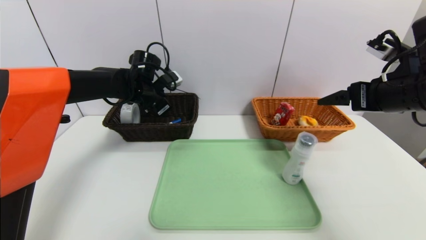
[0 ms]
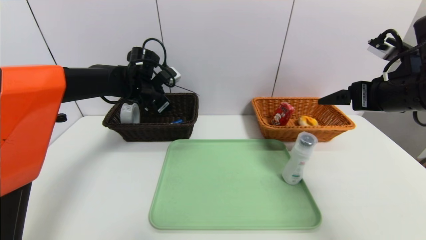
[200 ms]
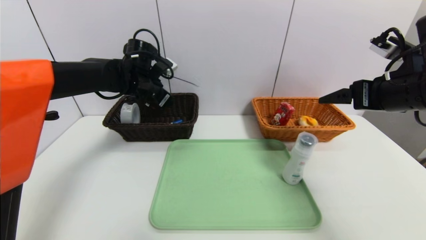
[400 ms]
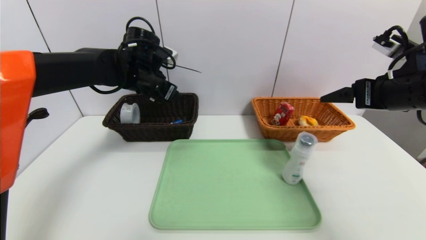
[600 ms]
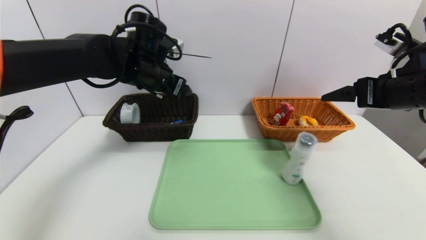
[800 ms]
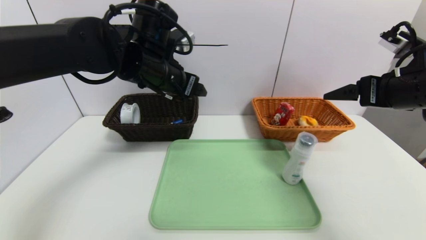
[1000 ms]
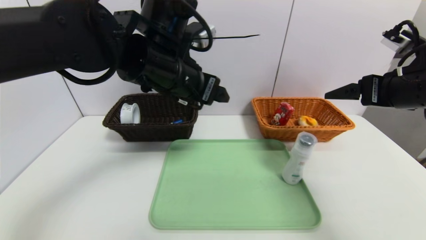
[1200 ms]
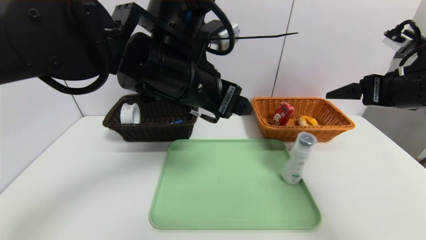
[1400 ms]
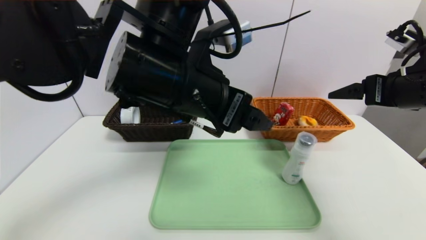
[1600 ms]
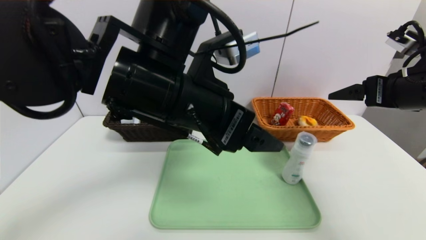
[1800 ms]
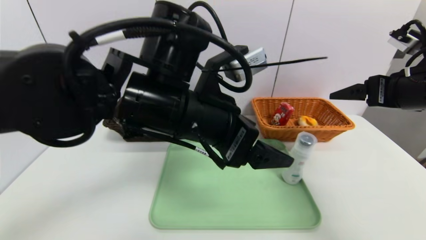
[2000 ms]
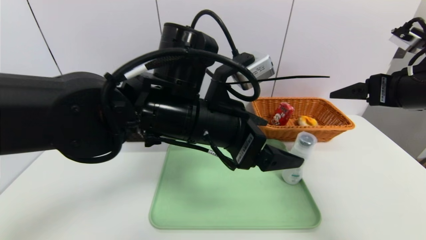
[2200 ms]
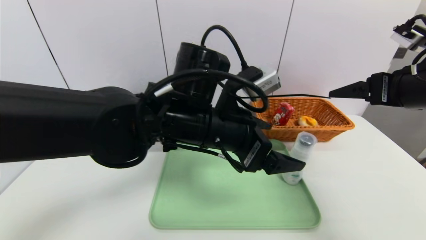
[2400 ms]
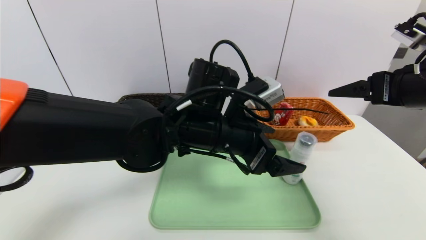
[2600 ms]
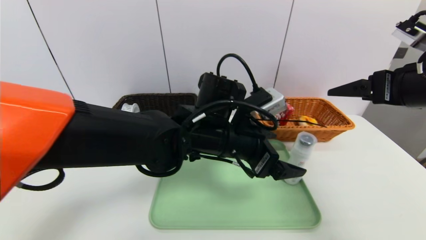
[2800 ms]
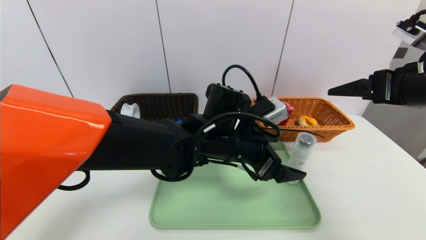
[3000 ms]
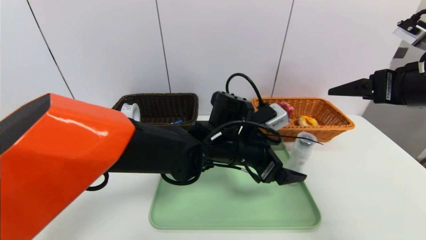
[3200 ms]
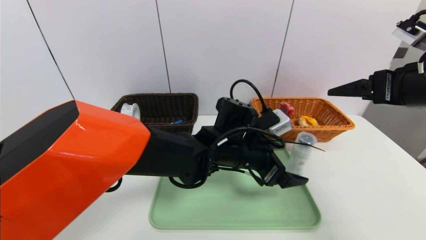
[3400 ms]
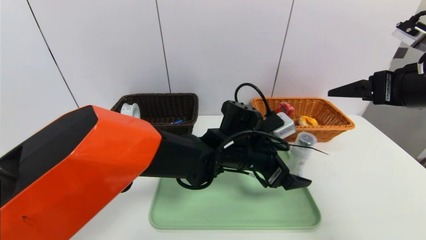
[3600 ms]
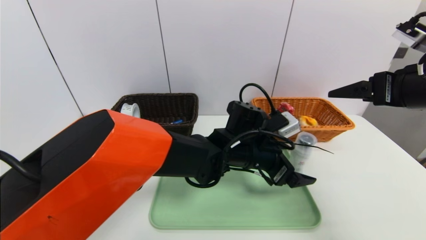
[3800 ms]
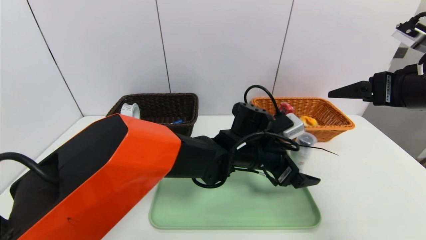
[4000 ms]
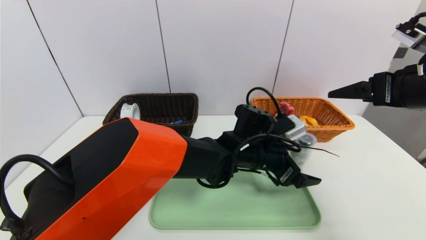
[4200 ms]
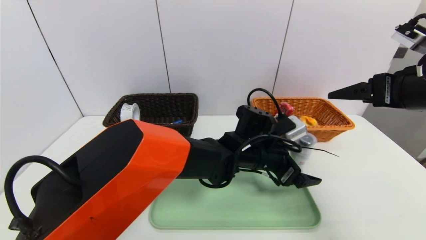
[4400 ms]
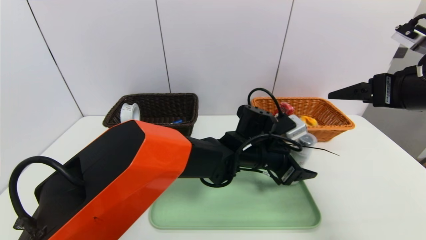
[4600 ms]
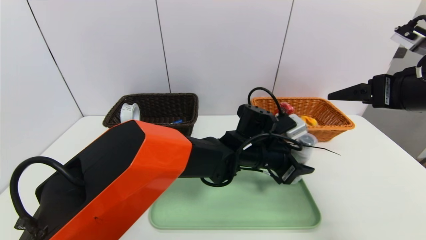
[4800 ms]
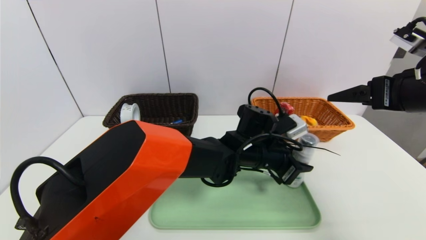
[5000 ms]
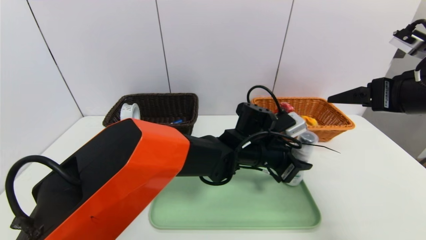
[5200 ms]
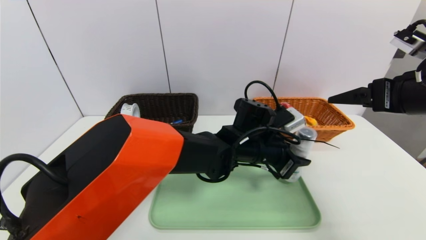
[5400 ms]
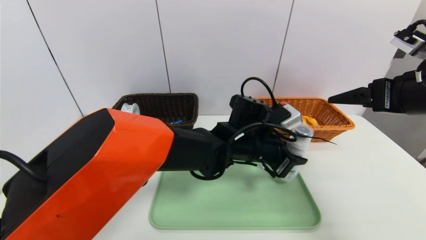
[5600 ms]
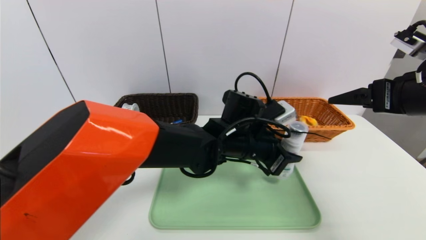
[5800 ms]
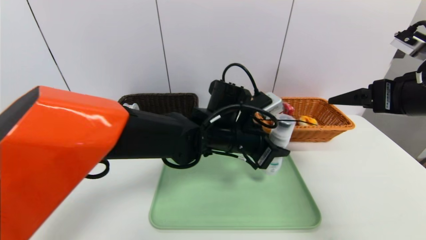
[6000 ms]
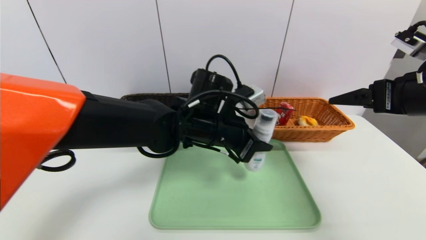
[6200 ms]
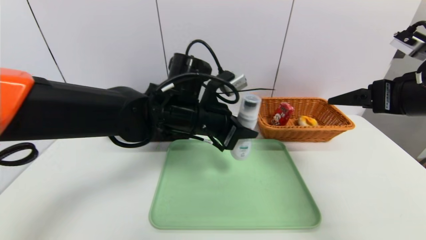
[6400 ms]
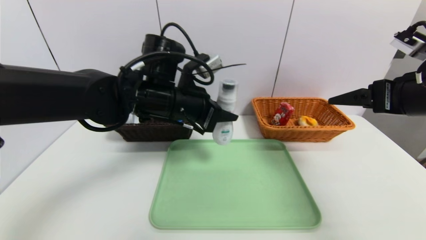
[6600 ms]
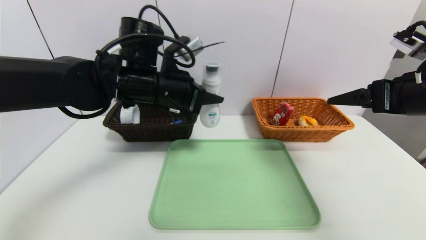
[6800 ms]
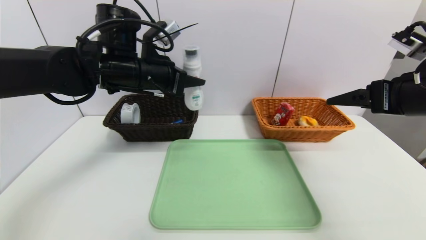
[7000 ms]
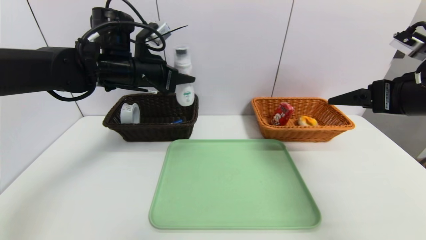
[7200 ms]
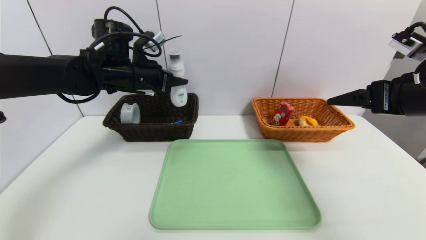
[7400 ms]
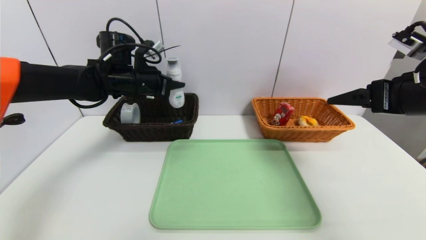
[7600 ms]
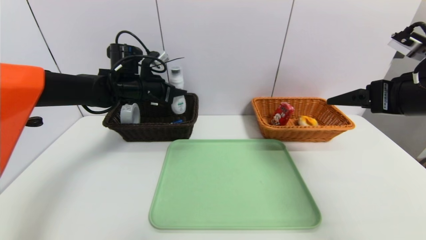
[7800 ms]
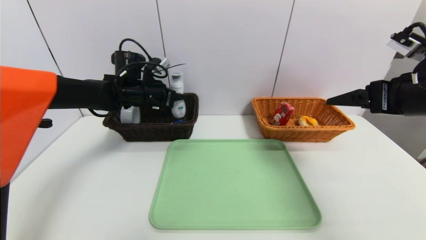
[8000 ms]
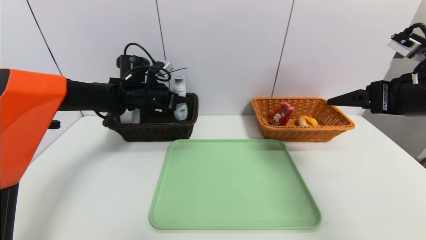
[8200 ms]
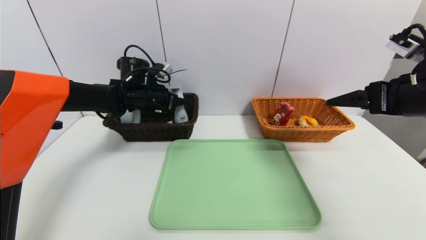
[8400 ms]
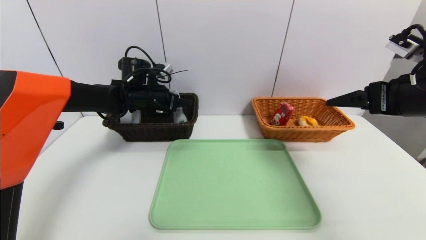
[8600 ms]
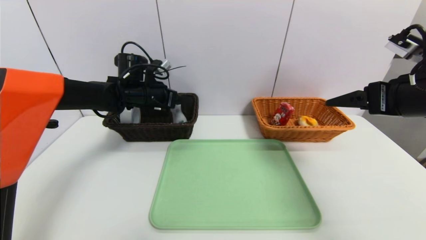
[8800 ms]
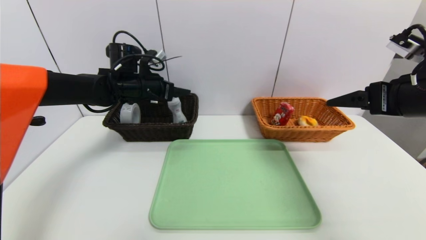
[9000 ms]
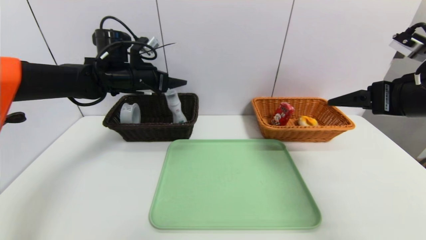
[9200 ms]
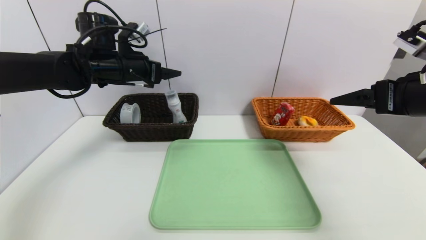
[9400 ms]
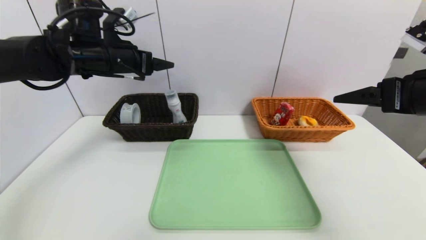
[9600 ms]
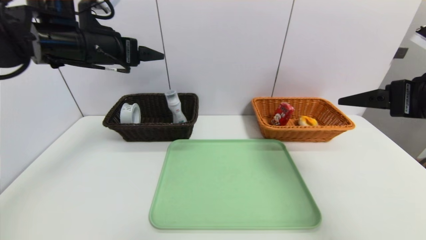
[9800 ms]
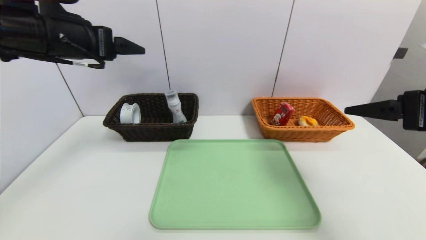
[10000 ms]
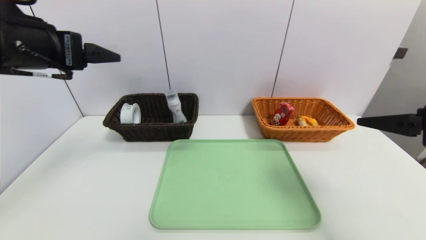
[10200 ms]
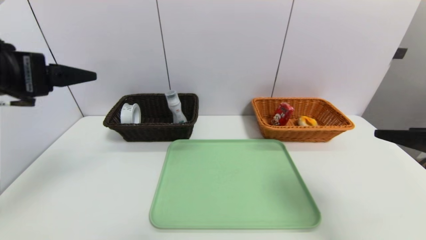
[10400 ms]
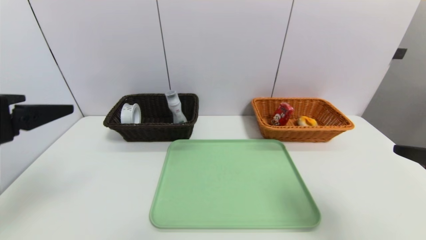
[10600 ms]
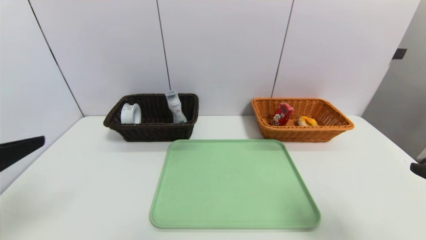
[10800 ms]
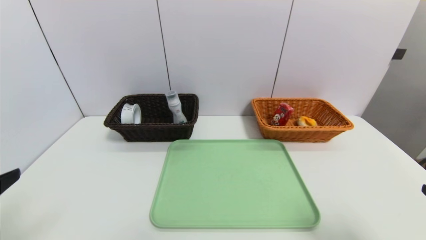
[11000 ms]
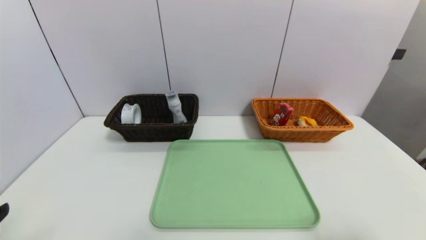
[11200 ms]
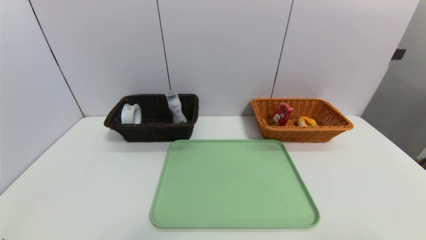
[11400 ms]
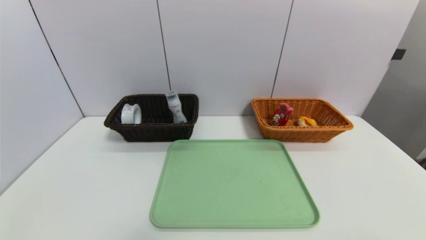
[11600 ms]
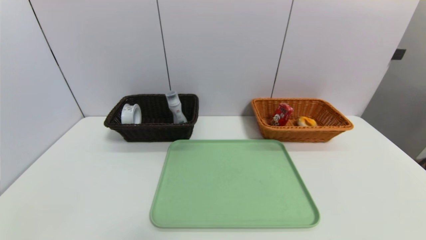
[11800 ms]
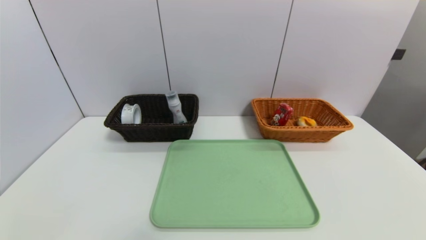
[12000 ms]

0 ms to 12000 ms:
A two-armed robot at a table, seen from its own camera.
Task of the whole recording: place the food in the right basket with the right gripper, and place the non food items in the left basket with the left gripper.
Step, 200 ms to 9000 ms: Grasp the washing liquid and put it in the left basket.
0 ms to 1600 ms: The left gripper travels backward, to the right and upward by about 30 cm, and opens.
1600 ms to 3000 ms: The left gripper travels downward, to the right and forward by roughly 15 cm.
3000 ms to 4400 ms: The left gripper moves to the right and downward, some 10 cm.
4400 ms to 6000 ms: The left gripper heads to the left and upward, covering some 10 cm, and closes up.
6000 ms to 7600 ms: The left gripper travels to the left and forward by roughly 25 cm.
7600 ms to 9000 ms: The left gripper opens its fingers.
9000 ms to 10400 ms: The left gripper travels backward and upward by approximately 30 cm, while the right gripper travels backward by approximately 10 cm.
10400 ms to 12000 ms: The left gripper goes about 30 cm backward and downward. Meanwhile the right gripper goes approximately 20 cm backward and downward.

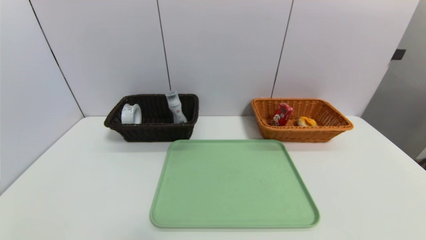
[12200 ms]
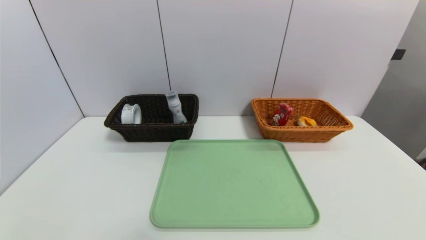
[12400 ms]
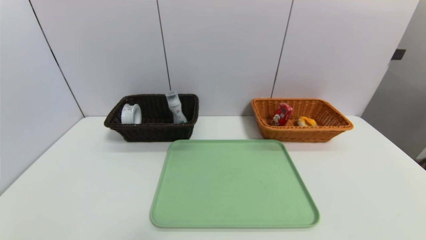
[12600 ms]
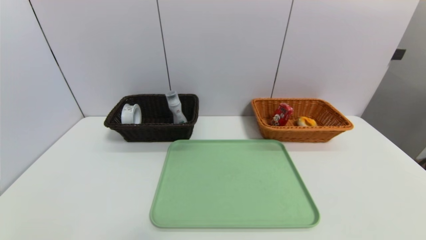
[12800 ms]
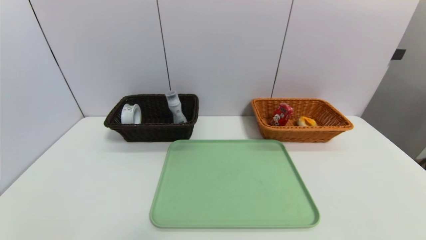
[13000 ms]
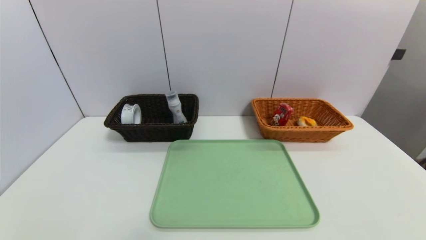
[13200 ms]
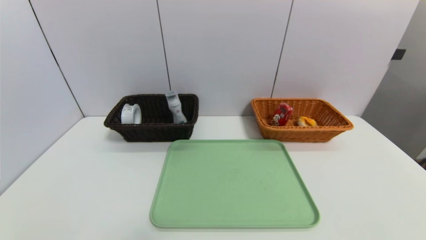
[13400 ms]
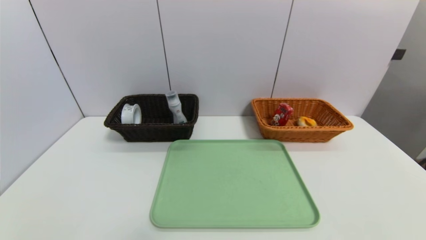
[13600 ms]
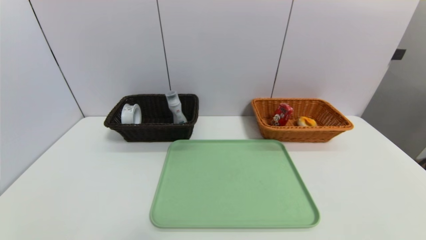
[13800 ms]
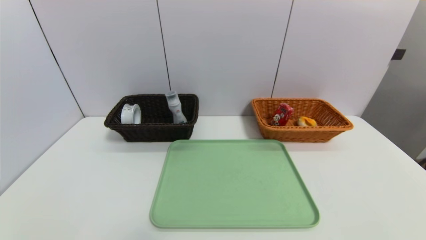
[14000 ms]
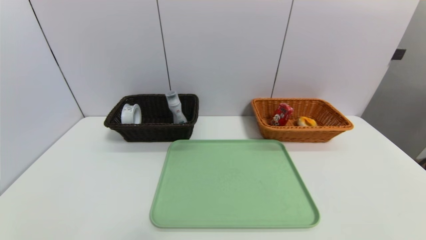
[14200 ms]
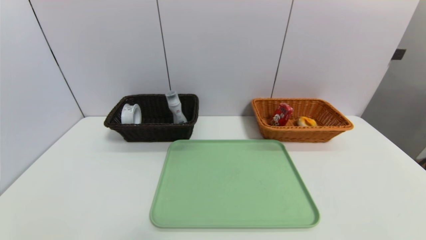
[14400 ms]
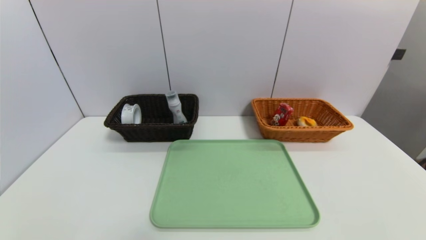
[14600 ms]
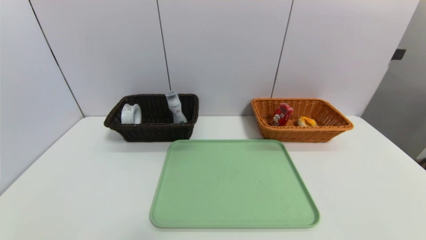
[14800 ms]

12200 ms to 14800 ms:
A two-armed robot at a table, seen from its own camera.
Task of the whole recording: place the food in the right basket with the right gripper, and place the non food items in the left basket with the left gripper.
13400 ms to 14800 ms: The two grippers keep their place.
